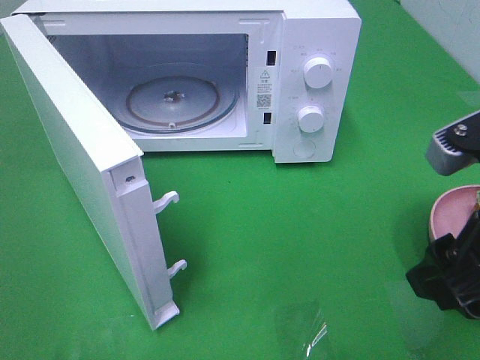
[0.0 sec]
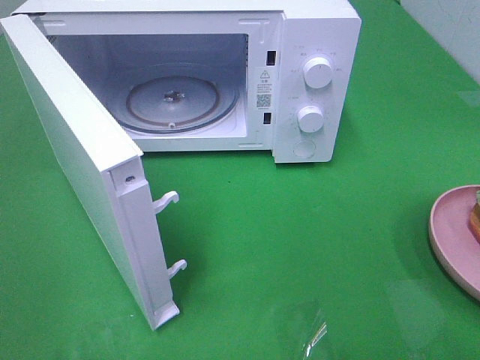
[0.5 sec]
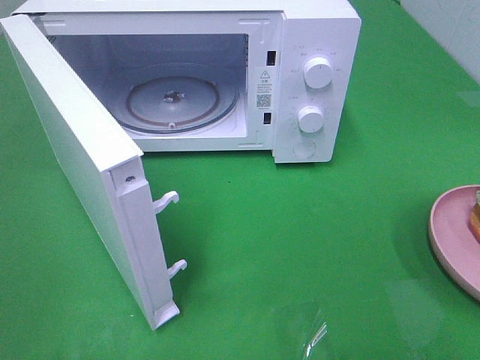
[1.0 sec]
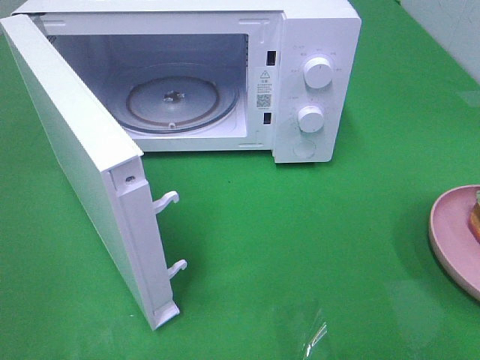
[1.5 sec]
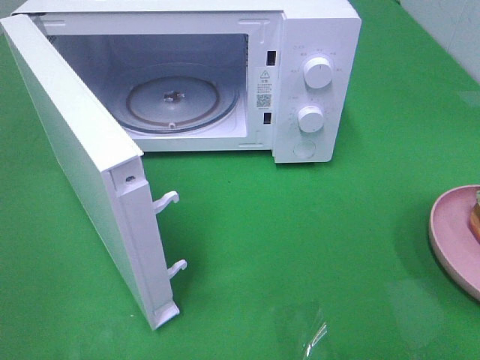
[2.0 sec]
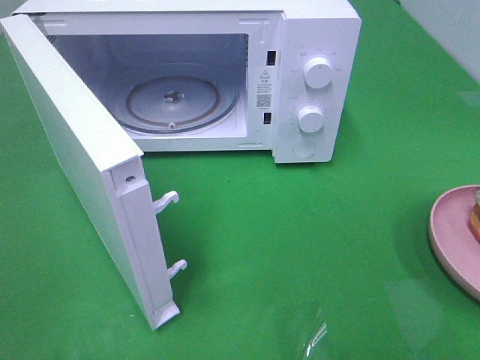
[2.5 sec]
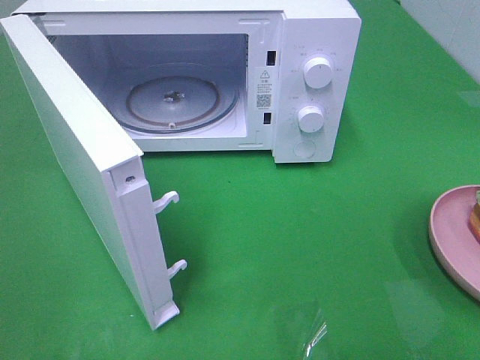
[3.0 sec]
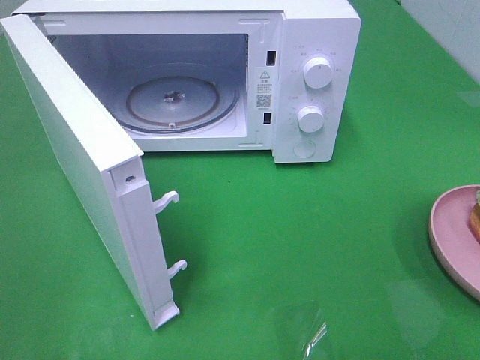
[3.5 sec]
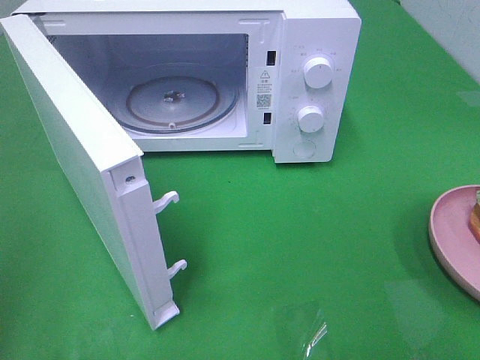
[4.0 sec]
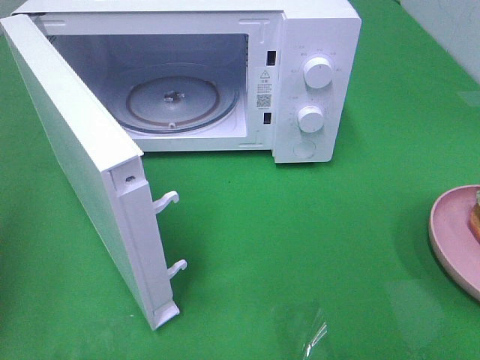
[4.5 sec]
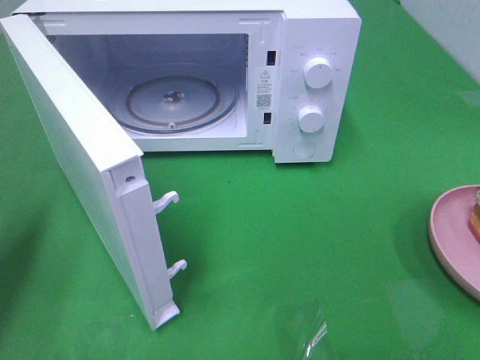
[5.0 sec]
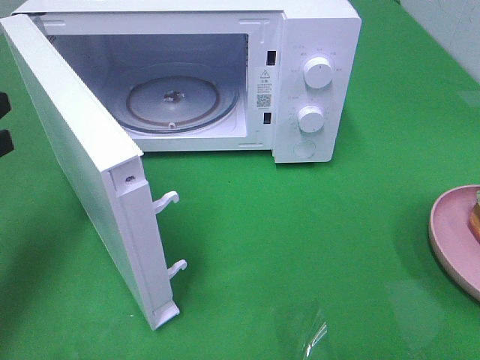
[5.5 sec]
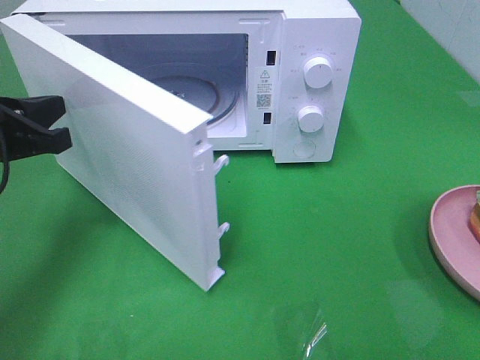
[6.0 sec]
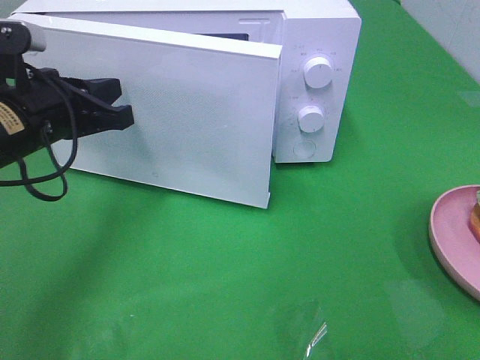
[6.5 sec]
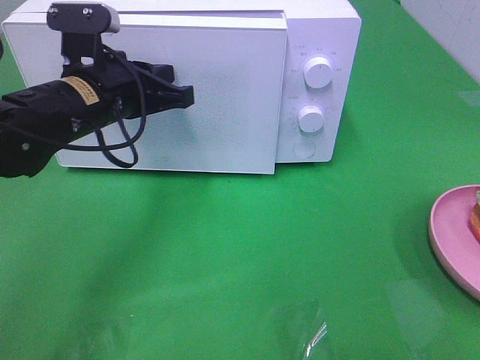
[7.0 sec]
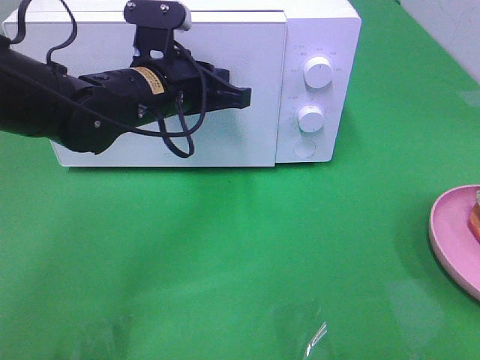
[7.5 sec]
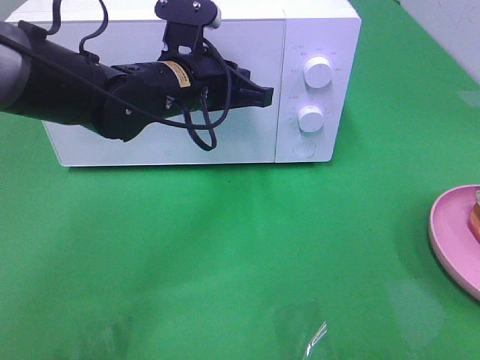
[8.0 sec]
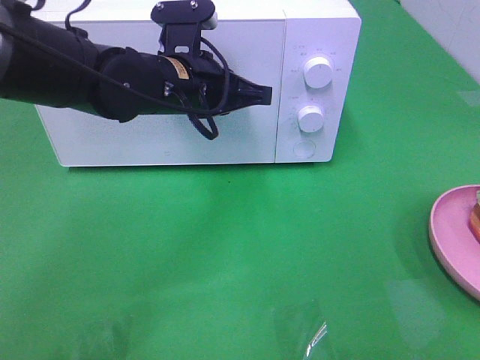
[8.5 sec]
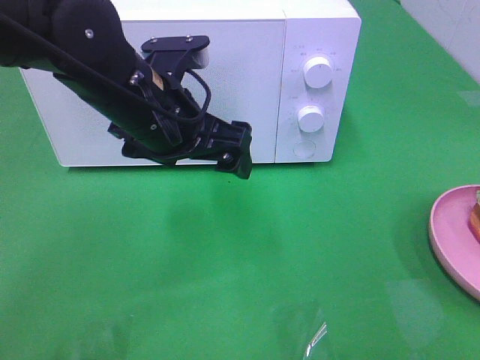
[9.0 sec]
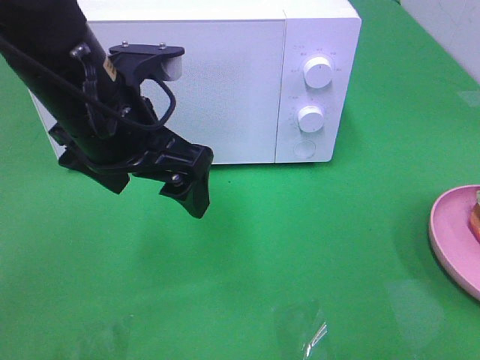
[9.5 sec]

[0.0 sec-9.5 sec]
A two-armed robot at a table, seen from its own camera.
Task of the whole recording: Heat the burger.
Step, 0.0 sec to 8.5 sec: Left hand: close the microwave door.
0.0 sec to 2.0 sec: The right gripper moves backward and to the right, about 15 cm.
4.0 sec to 5.5 sec: The left gripper goes roughly 20 cm forward and downward.
5.5 sec to 7.5 sec: The left gripper heads to the right and forward, covering approximately 25 cm.
7.5 sec to 9.5 sec: The left gripper moves backward and upward, approximately 10 cm, and opens up.

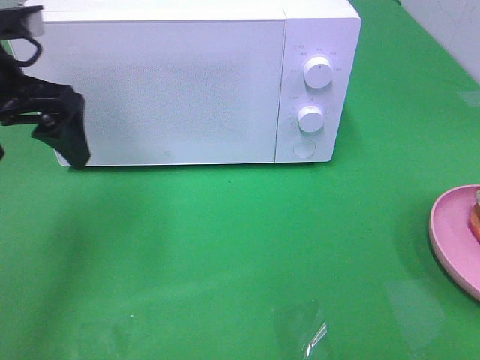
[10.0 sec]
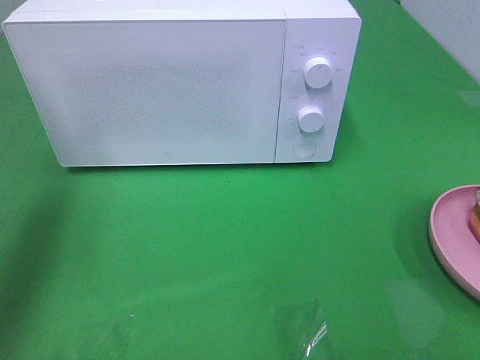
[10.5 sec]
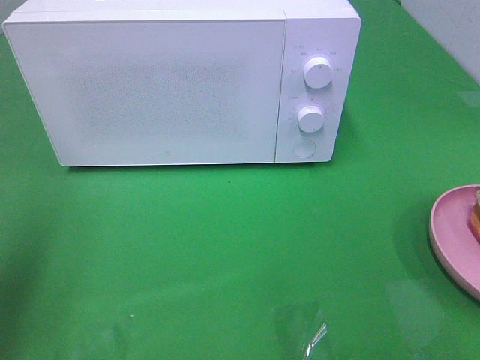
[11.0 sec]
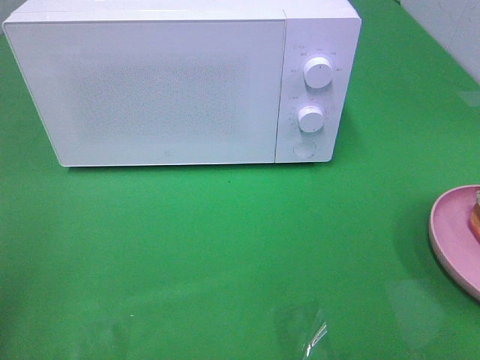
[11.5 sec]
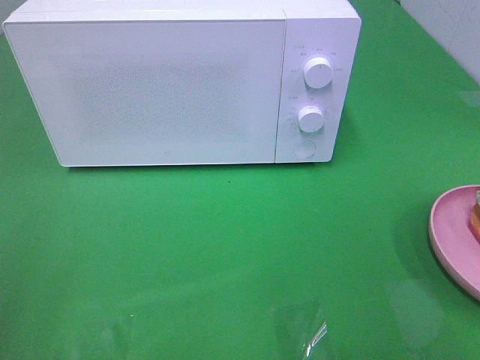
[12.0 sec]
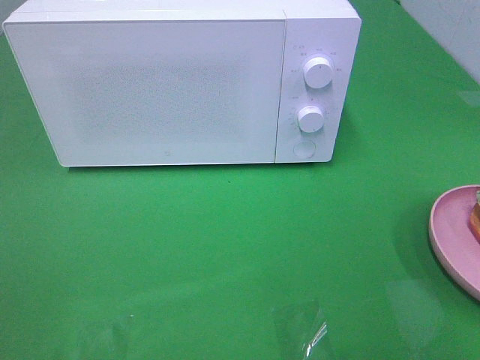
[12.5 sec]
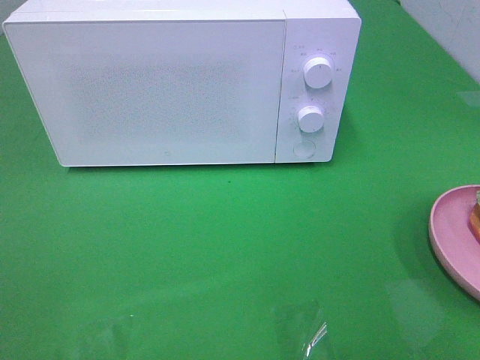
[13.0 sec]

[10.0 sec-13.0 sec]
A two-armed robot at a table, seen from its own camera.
Task of the whole recording: Heat the burger.
10.0 sec to 11.5 sec: The left gripper is displaced backward and to the left by about 20 cm.

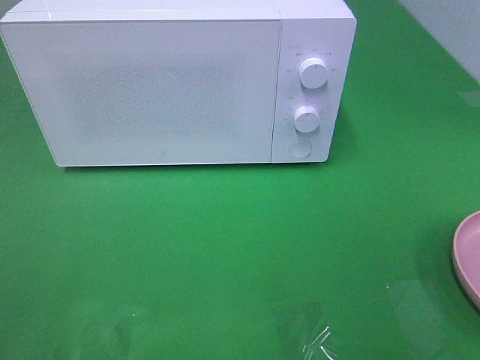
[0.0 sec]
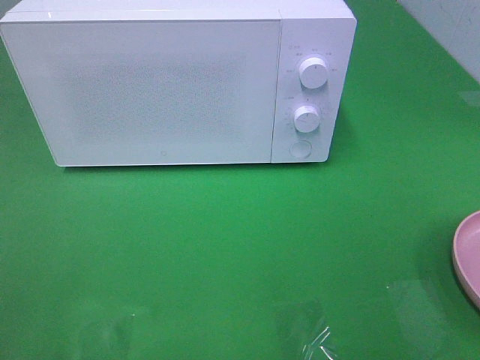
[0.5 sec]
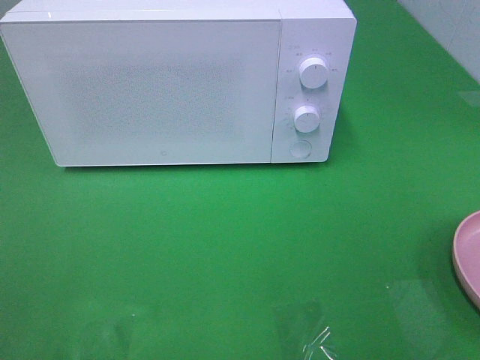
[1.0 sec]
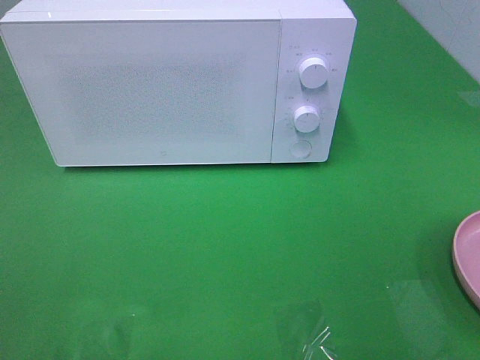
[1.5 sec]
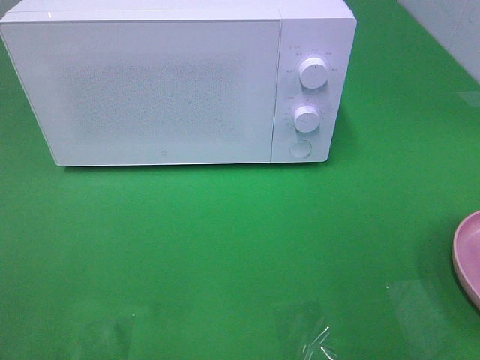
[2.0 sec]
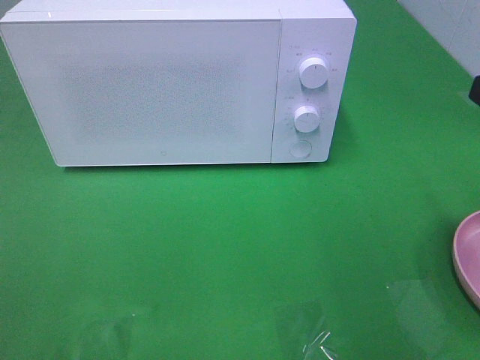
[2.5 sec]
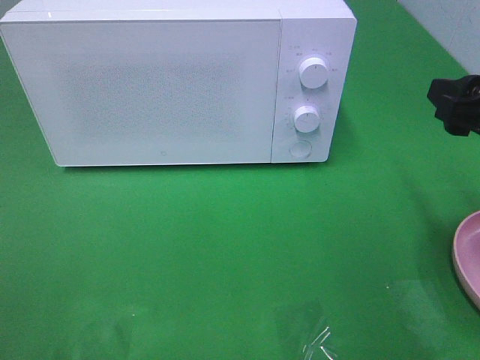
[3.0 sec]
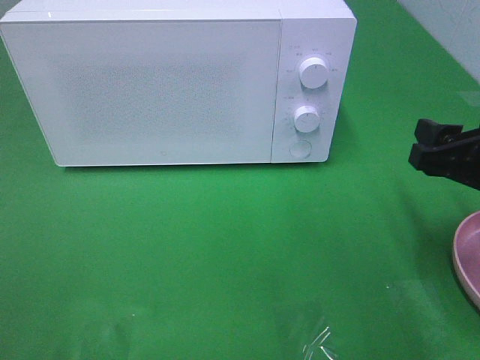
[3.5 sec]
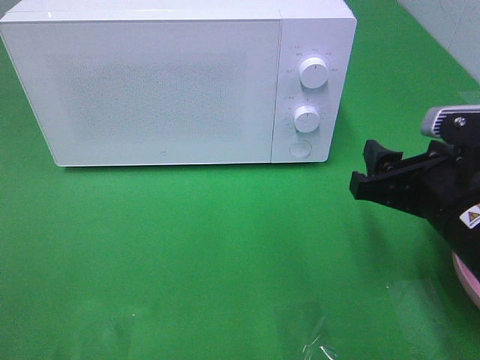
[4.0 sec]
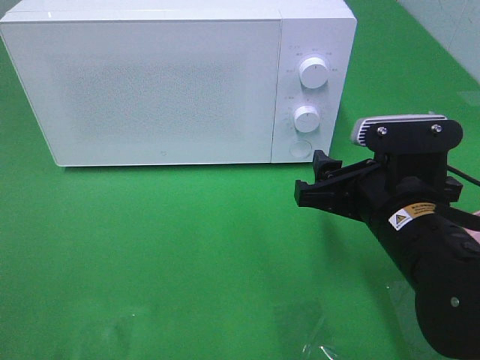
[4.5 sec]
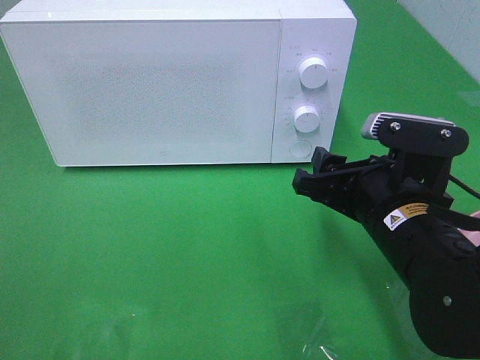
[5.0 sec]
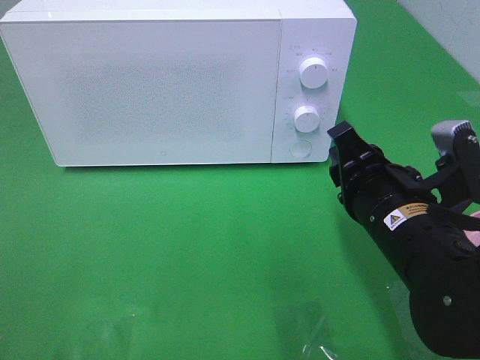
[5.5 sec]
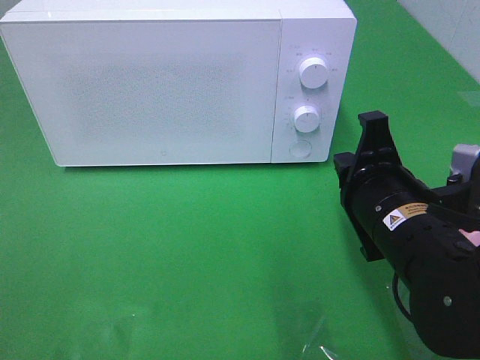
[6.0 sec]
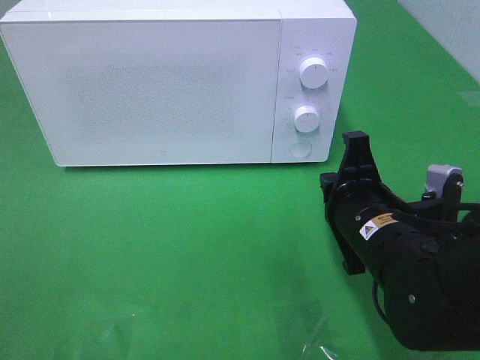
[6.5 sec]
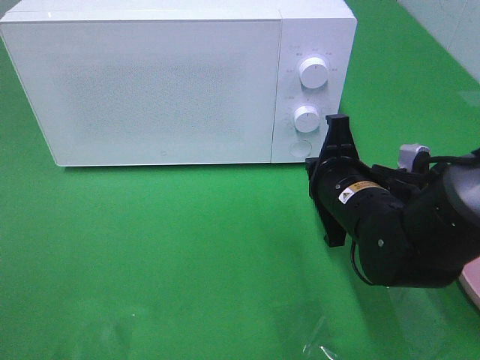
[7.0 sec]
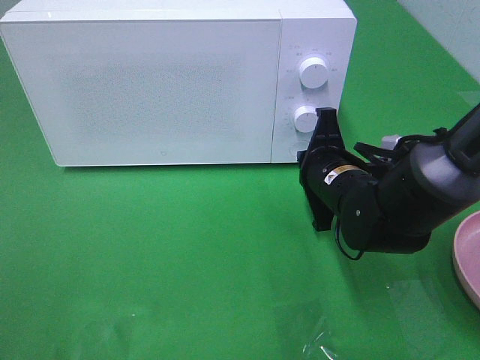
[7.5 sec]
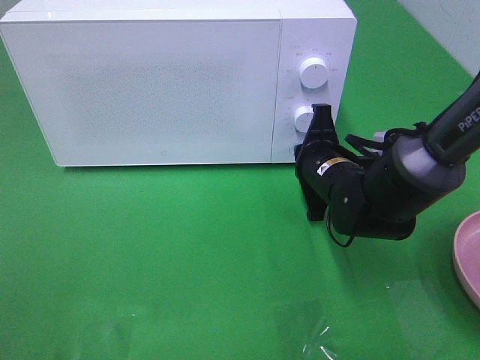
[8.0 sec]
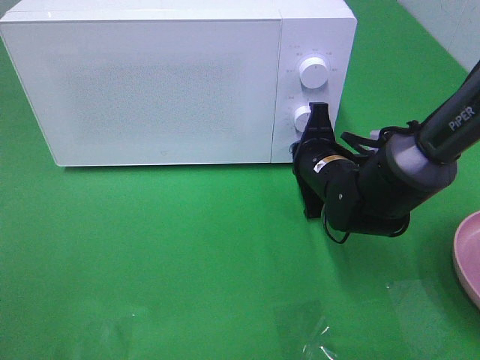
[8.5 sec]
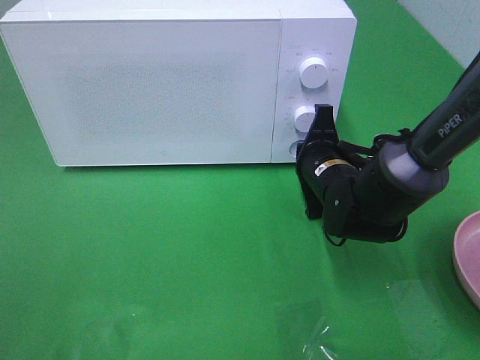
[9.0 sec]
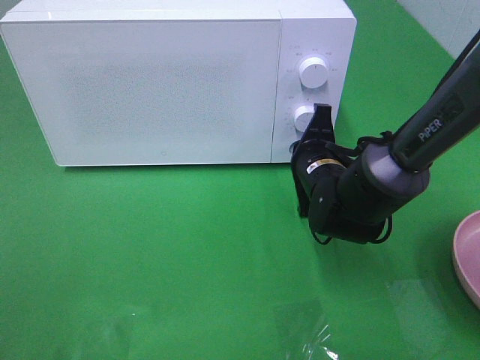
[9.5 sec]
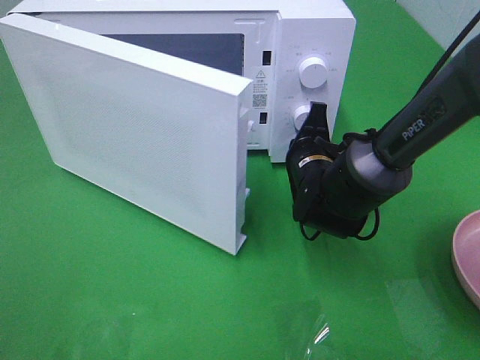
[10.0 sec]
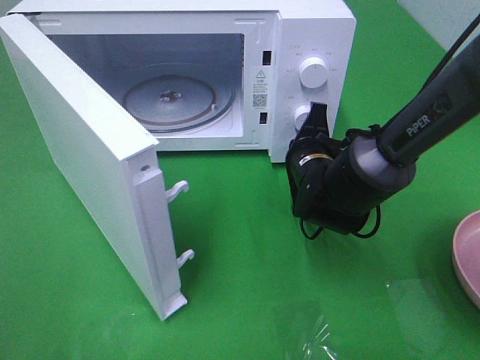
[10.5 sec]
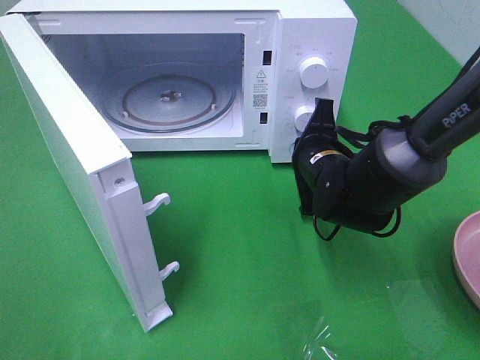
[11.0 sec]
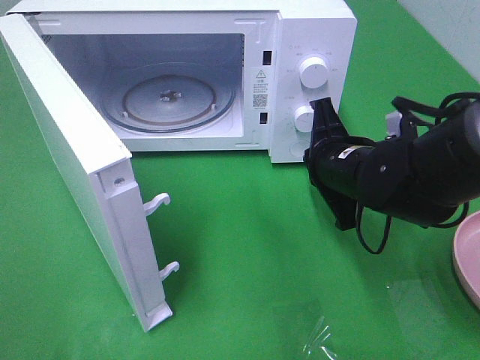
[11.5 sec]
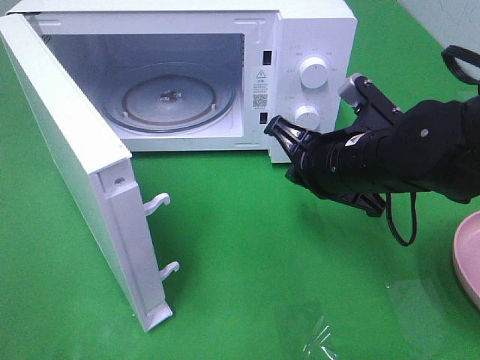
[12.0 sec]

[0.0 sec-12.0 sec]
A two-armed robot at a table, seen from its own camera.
Task of the whole recording: Heat the burger.
Step, 0.0 sec to 11.0 sec: Right hand: press the switch.
2.0 sec to 4.0 sec: The right gripper goes roughly 15 cm downward, to the left and forward.
4.0 sec to 6.0 sec: The right gripper is displaced to the left by some 5 cm, and closes its fingers.
6.0 sec to 8.0 sec: The right gripper moves forward and downward, about 15 cm.
10.0 sec to 12.0 sec: The right gripper travels upward and backward by roughly 10 cm.

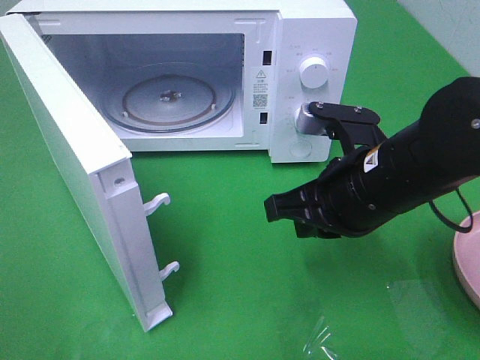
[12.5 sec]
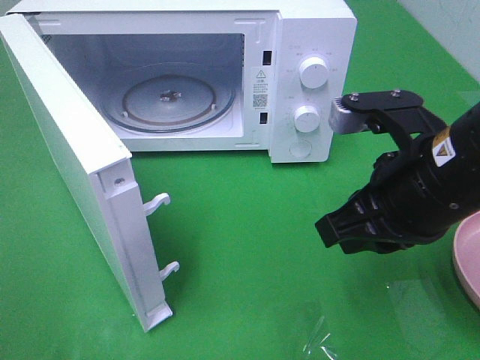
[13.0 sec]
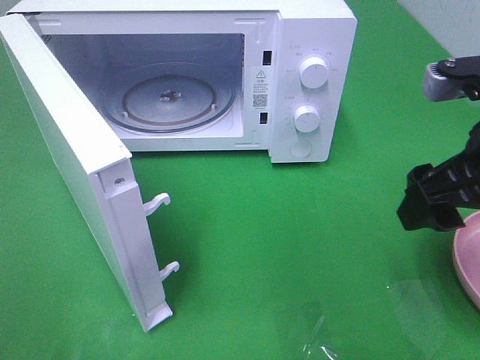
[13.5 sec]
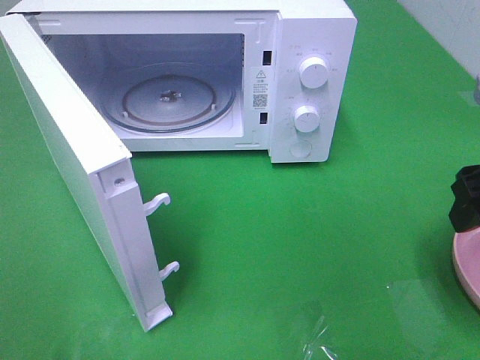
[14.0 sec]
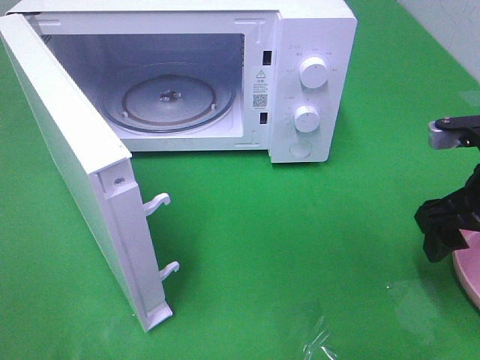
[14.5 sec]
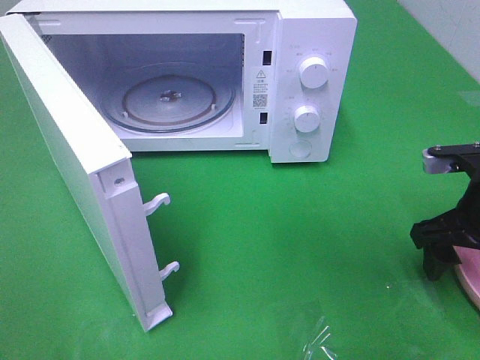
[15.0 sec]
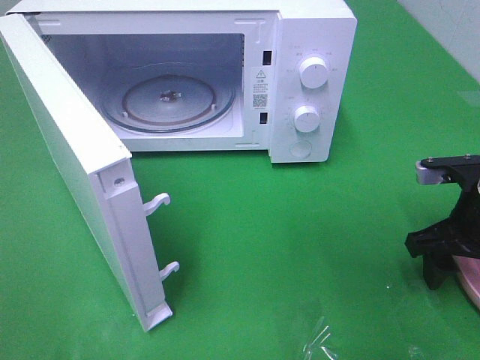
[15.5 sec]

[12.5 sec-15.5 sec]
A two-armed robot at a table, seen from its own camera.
Task of the whole recording: Heat the burger.
12.5 sec to 14.0 sec: The right gripper travels to the right and upward by some 15 cm, and opens.
14.0 sec to 15.5 sec: The right gripper is displaced downward by about 10 cm.
